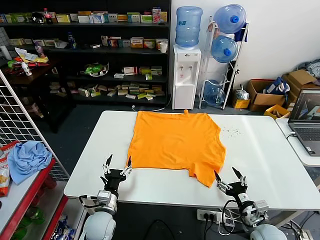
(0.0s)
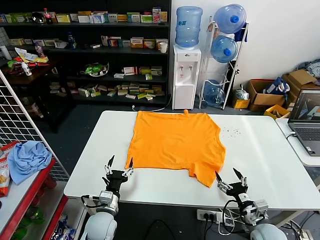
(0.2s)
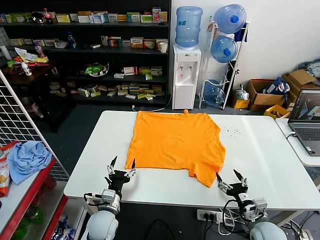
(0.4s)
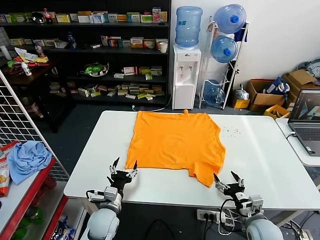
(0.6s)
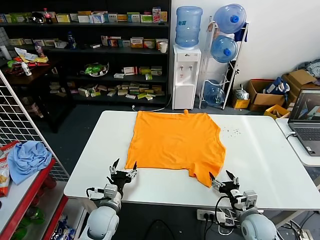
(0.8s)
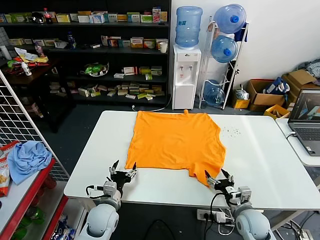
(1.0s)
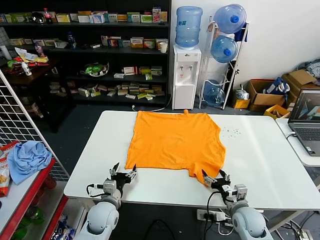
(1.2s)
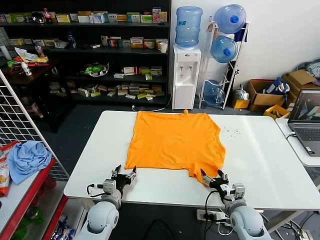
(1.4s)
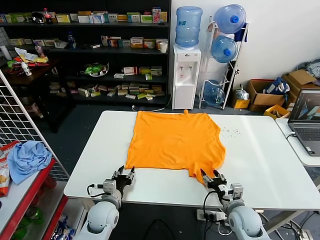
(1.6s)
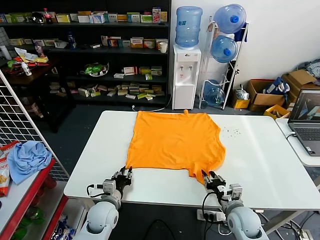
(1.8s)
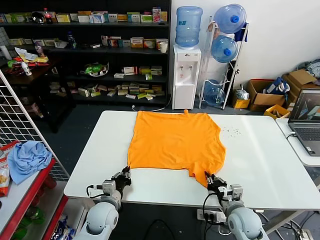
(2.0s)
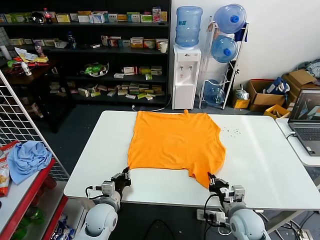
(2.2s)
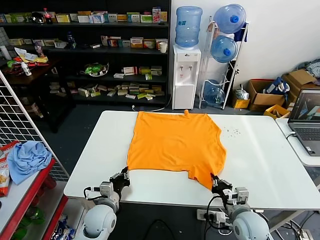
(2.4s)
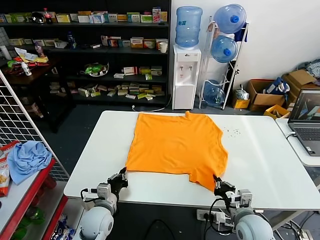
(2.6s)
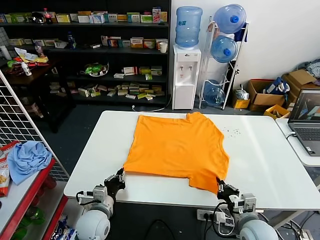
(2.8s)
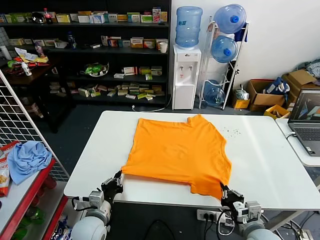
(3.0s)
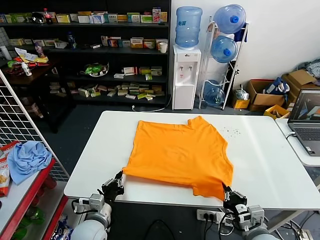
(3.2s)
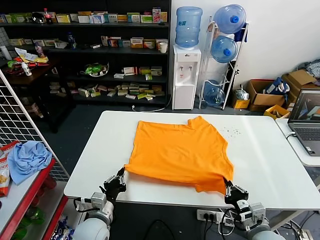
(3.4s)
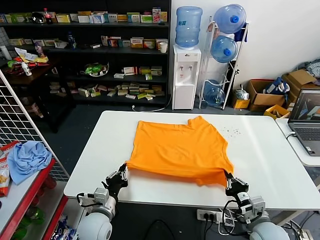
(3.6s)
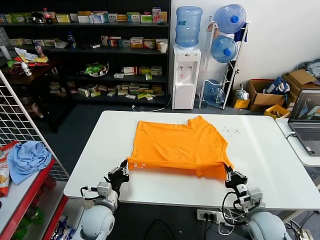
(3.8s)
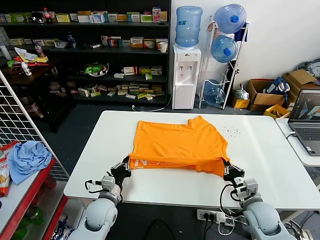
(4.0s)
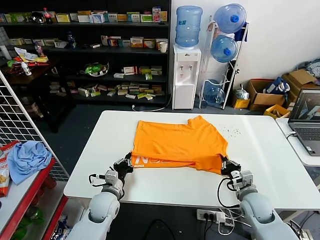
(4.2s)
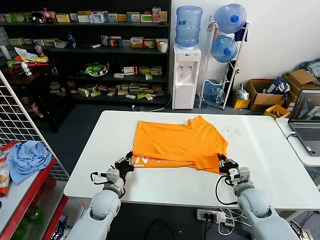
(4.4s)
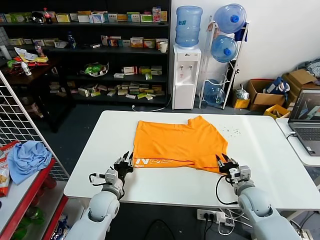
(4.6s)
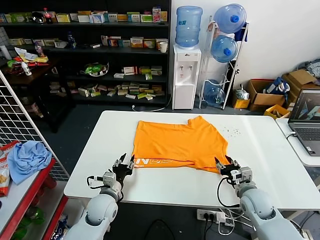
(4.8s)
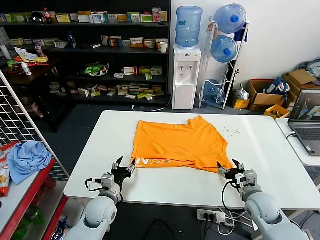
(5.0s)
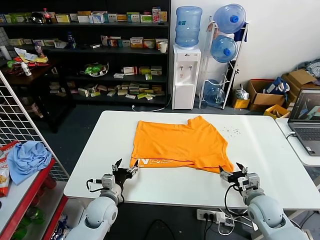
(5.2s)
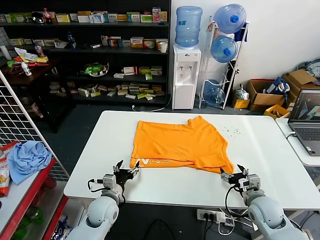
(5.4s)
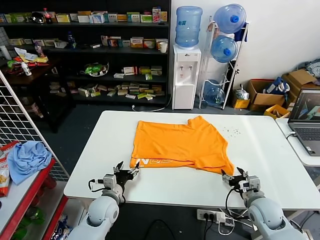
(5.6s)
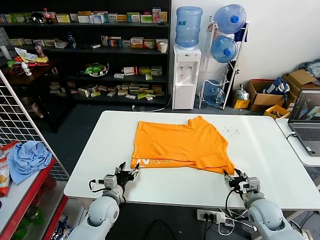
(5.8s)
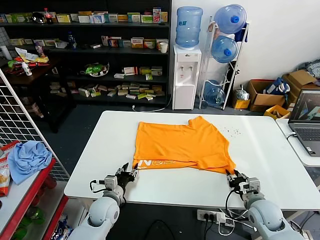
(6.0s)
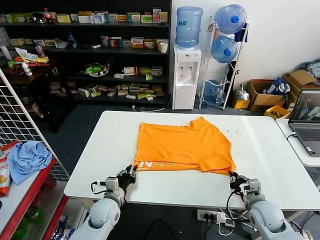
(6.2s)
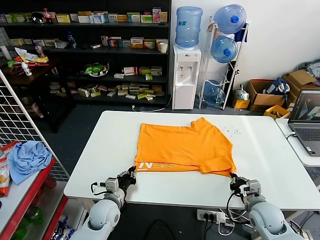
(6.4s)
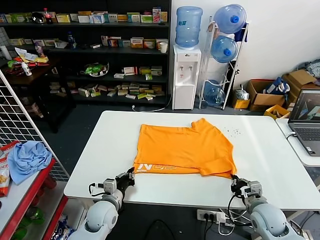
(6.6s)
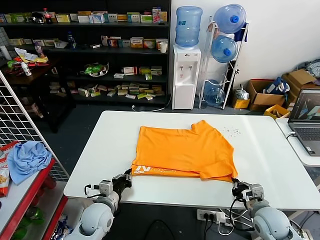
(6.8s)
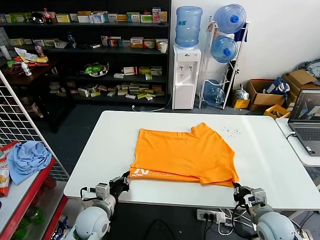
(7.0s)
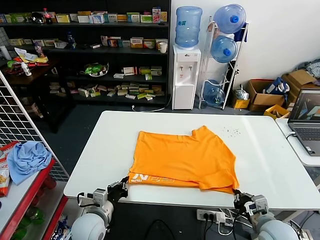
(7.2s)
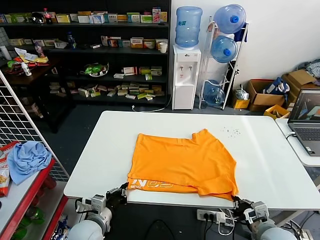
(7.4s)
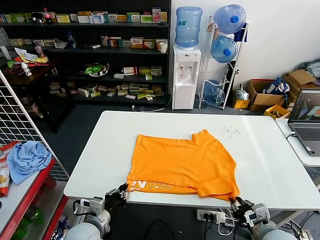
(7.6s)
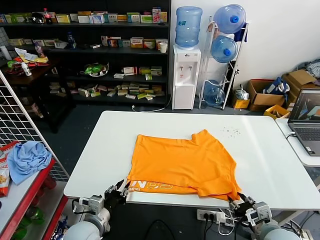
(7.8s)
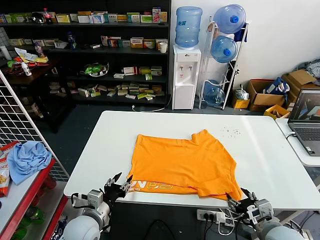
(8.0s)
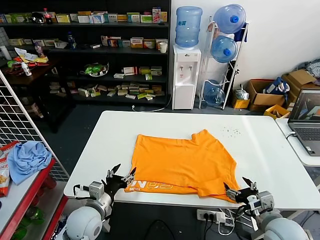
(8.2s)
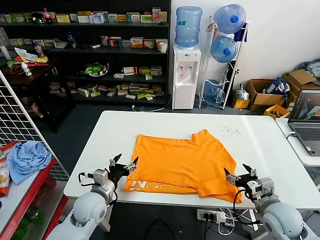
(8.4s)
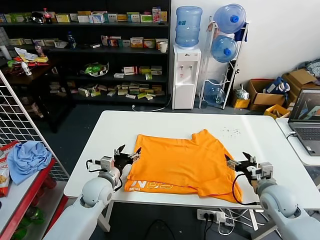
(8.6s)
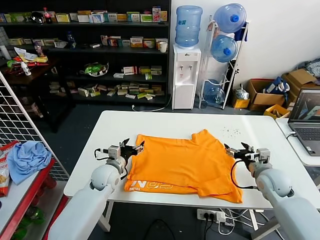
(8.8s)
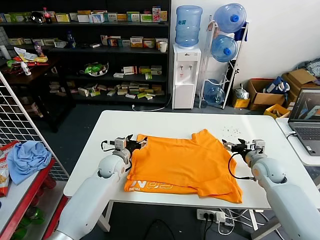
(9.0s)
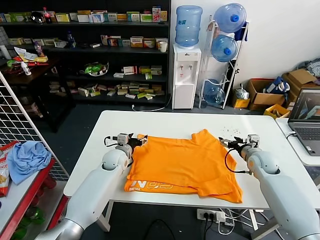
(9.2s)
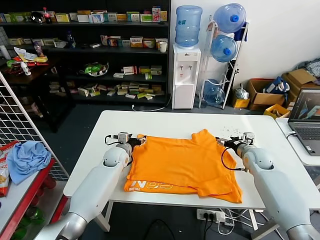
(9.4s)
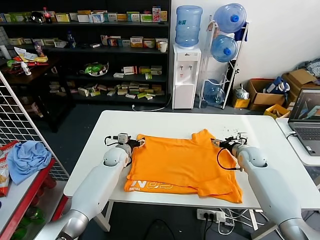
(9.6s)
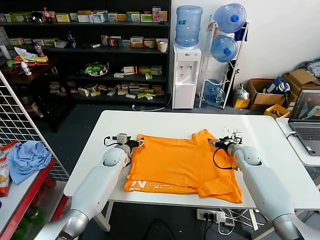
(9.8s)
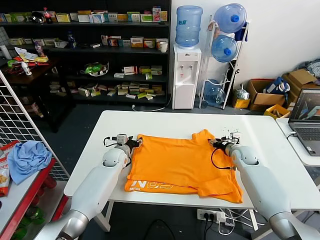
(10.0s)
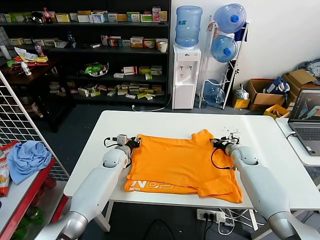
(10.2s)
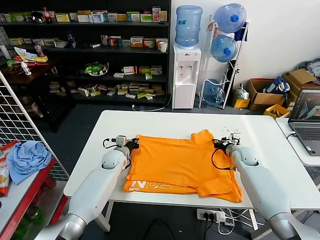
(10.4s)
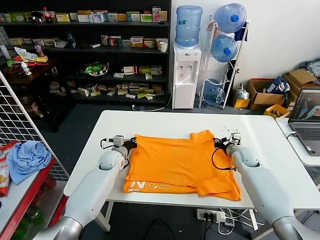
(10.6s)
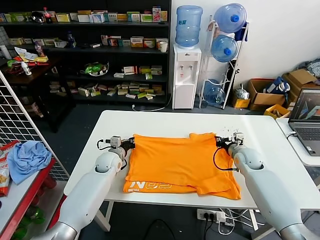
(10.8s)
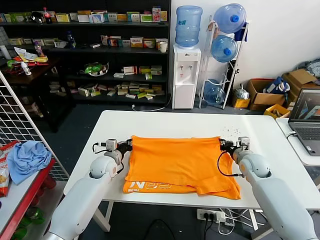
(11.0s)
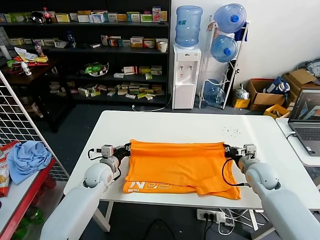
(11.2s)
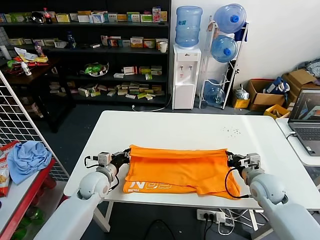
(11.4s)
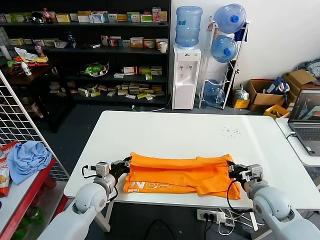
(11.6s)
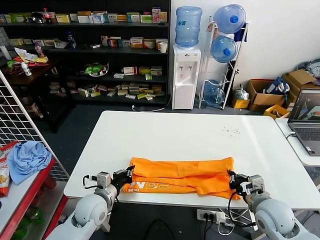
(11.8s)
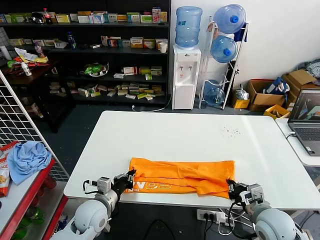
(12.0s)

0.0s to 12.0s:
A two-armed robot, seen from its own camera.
Task of the whole recording: fold and organize the clothes.
Step, 0.0s to 2.4s: use both grippers simultaneously to clamp the lower edge of the clothing fabric.
Step, 2.6s to 4.8s: use both grippers to drag the lower edge of the fabric forward and fold it over the upper edge.
Step, 5.0s to 8.2s: Drag the clothes downward with both gripper.
Step, 8.4s to 10.6s: use both grippers simultaneously to clamp the upper edge of the clothing fabric.
1.6s to 3.0s: The right gripper moves backward and upward, about 10 cm, and closes its fingers, while the left gripper moves backward, approximately 5 cm, and closes its fingers.
3.0s to 4.4s: The left gripper heads forward, covering about 10 cm; the right gripper moves forward, about 15 cm.
4.4s to 6.0s: The right gripper ends up approximately 5 cm from where it was, and opens, then closes again, while the left gripper opens up.
6.0s to 7.6s: The left gripper moves backward, about 10 cm, and closes. Meanwhile the right gripper shifts roughly 10 cm backward and upward.
7.6s to 9.0s: The grippers both shift forward by some 25 cm. The right gripper opens. Meanwhile the left gripper opens.
9.0s to 10.4s: Both grippers travel together forward, roughly 5 cm. The right gripper closes up; the left gripper closes up.
10.4s to 12.0s: Both grippers move backward, approximately 25 cm.

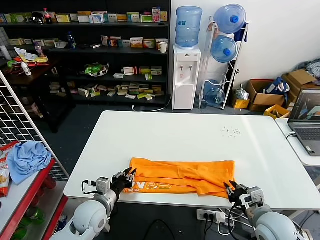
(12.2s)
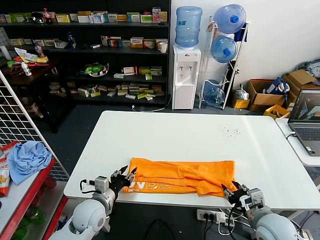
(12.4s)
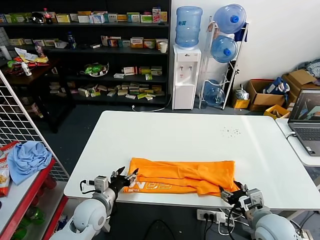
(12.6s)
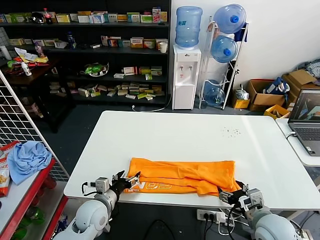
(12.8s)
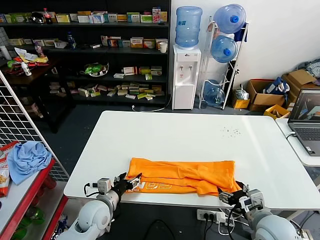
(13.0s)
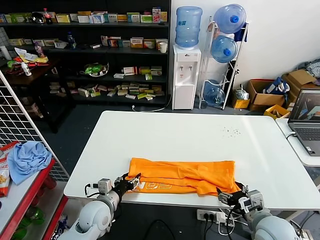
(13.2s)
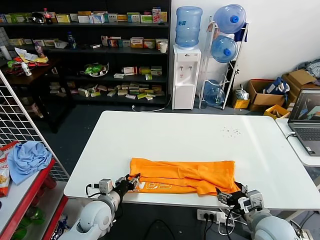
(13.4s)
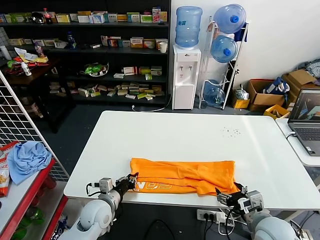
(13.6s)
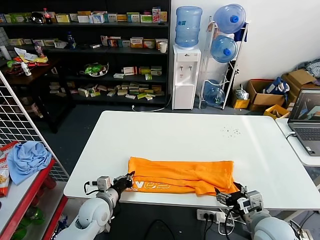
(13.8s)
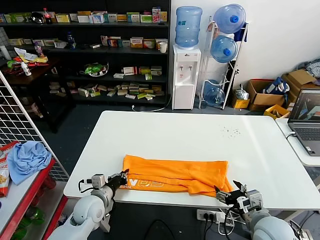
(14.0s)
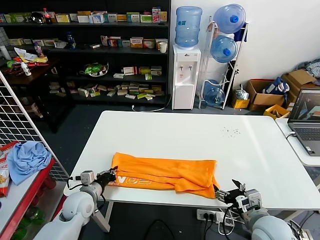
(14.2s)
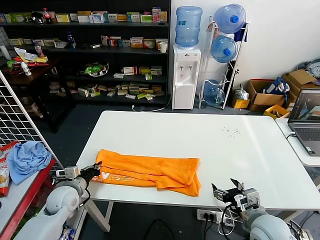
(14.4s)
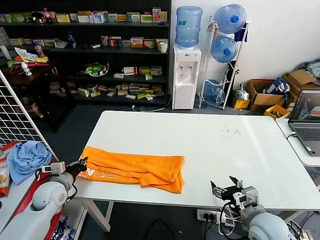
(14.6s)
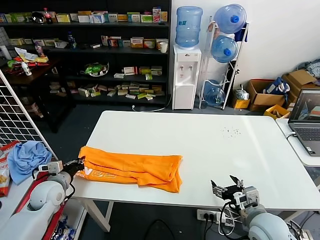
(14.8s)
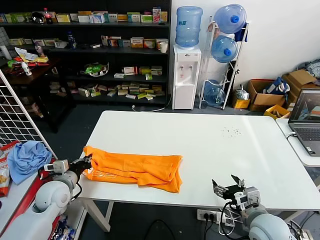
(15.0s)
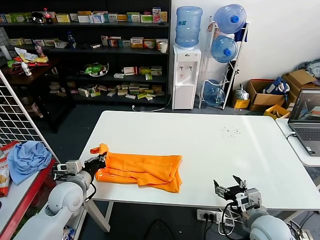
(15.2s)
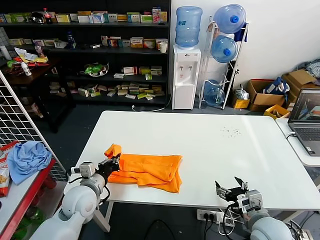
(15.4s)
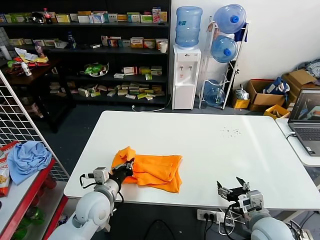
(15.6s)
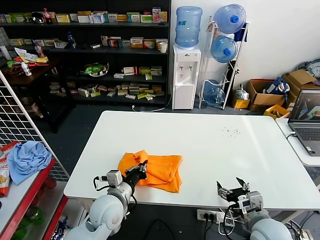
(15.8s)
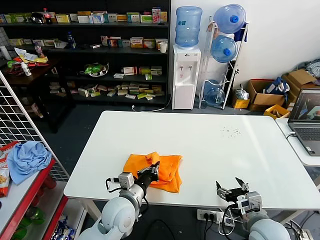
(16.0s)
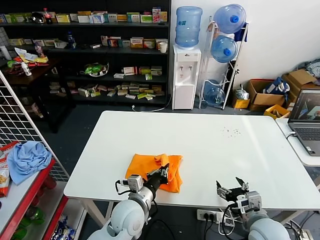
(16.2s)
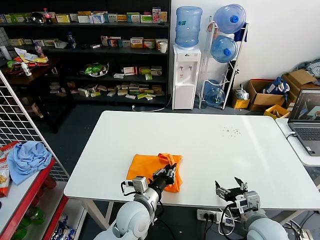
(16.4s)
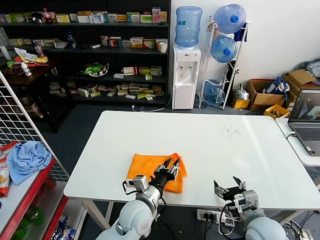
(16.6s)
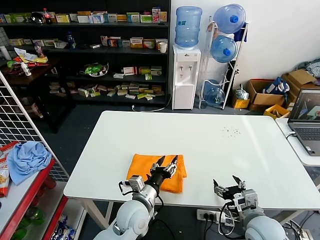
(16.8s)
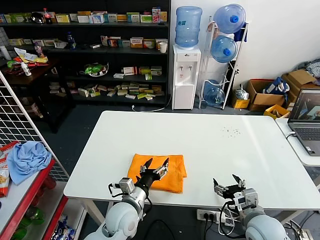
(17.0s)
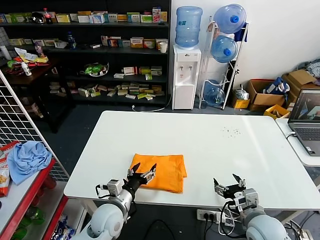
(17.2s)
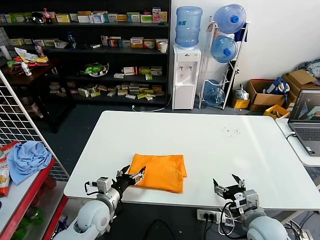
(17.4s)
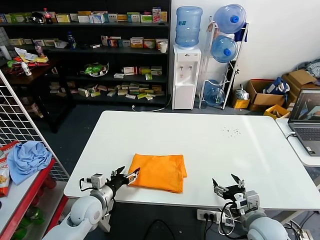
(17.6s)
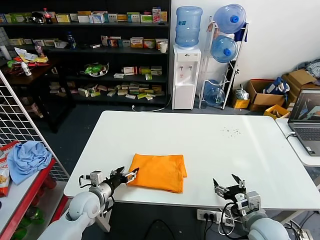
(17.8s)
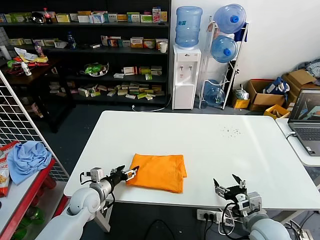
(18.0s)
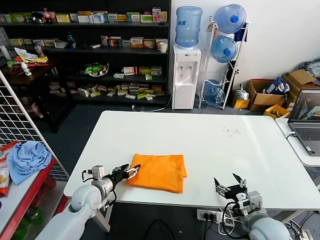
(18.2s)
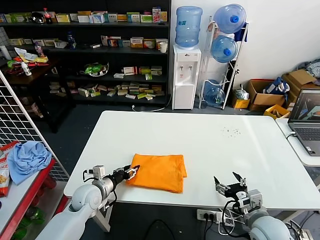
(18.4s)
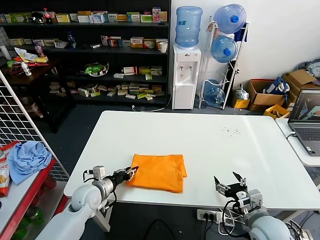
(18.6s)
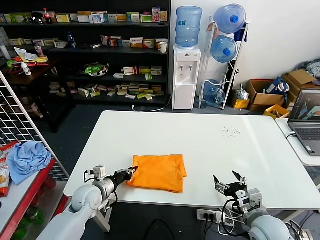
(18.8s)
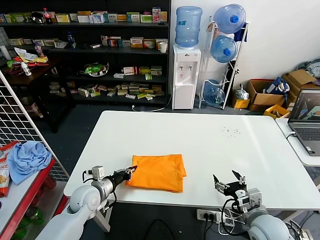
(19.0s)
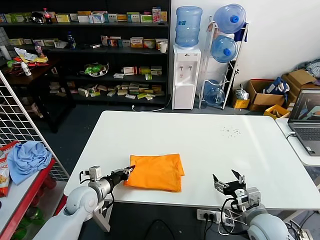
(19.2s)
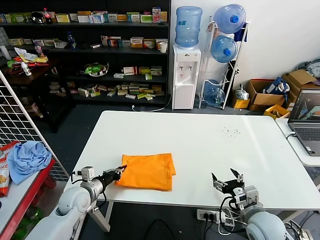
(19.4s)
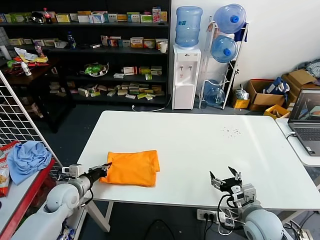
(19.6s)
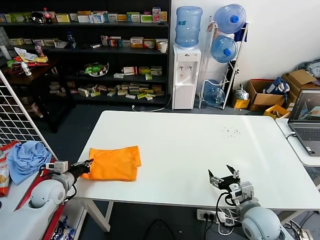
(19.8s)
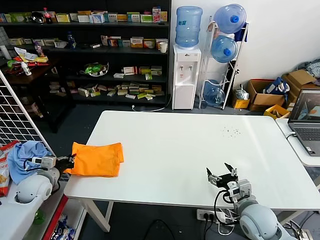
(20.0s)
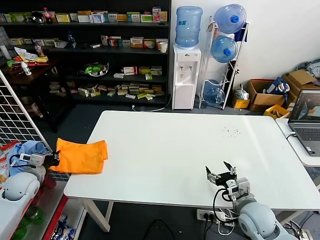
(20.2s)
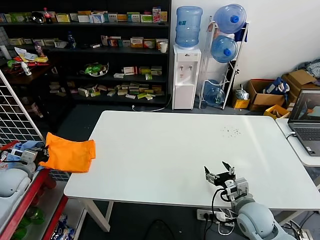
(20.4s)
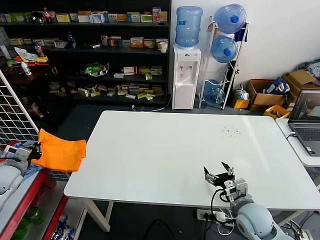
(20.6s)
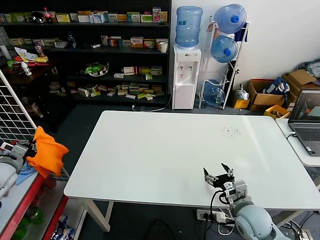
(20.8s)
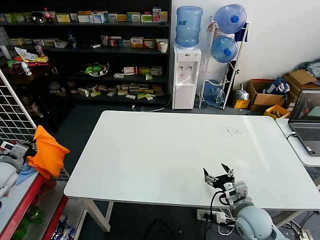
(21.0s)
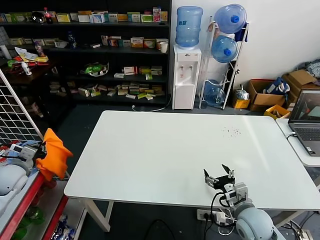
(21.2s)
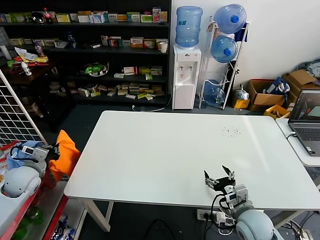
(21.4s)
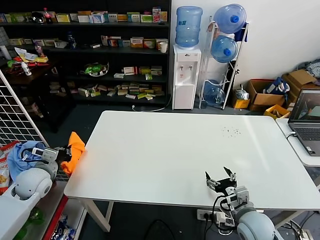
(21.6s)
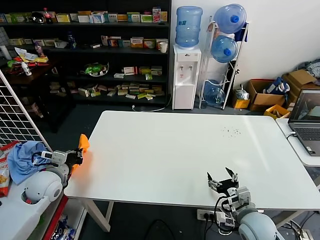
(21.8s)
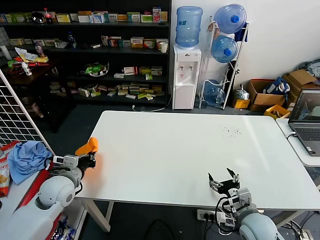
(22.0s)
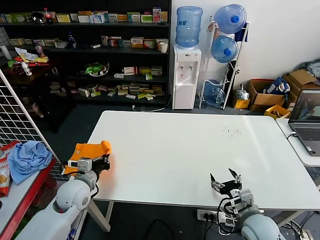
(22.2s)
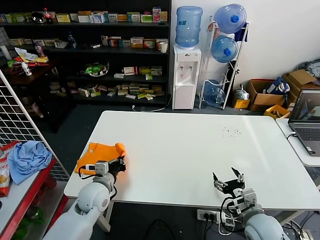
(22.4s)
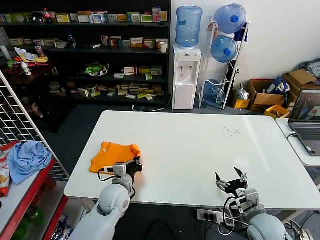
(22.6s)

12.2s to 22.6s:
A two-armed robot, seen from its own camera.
Task of the whole recording: fold and organize the clothes.
Step, 12.2s to 13.8s: use the left gripper to clamp the left edge of the fabric.
Step, 14.0s to 16.6s: use the left gripper to drag the left edge of the fabric to the left and folds it over the right edge.
12.2s to 13.6s: The left gripper opens, then closes again; the right gripper opens its fingers.
13.6s to 15.2s: The left gripper travels to the left and upward by roughly 10 cm.
15.2s to 16.6s: The left gripper travels to the right by approximately 25 cm, and opens up.
16.6s to 18.2s: The left gripper travels to the left by roughly 20 cm, and opens its fingers.
18.2s to 19.6s: The left gripper shifts roughly 5 cm to the left, and closes.
19.6s to 21.2s: The left gripper moves to the left and upward, approximately 20 cm.
21.2s to 22.6s: The left gripper moves to the right, approximately 30 cm.
